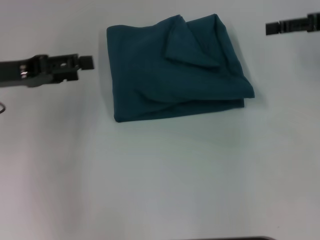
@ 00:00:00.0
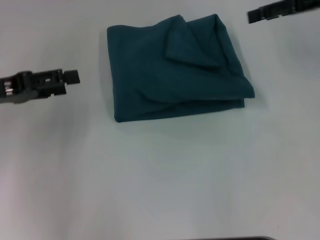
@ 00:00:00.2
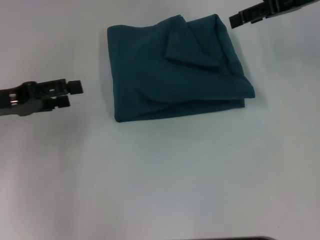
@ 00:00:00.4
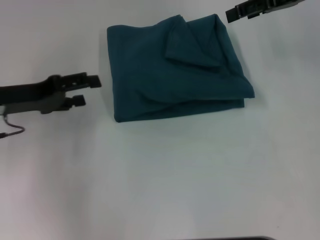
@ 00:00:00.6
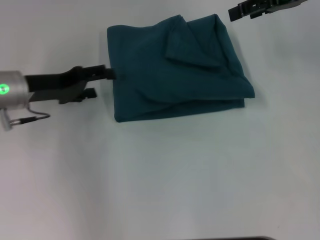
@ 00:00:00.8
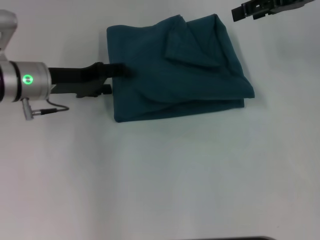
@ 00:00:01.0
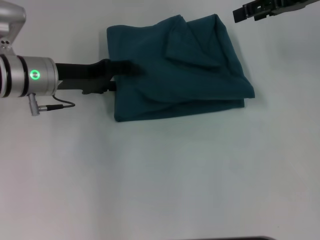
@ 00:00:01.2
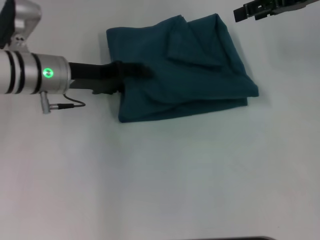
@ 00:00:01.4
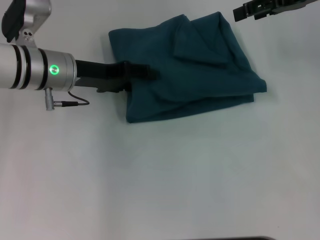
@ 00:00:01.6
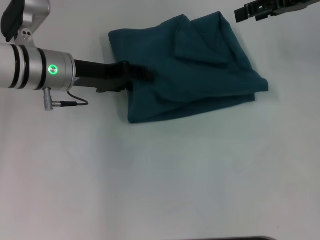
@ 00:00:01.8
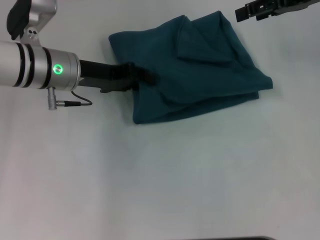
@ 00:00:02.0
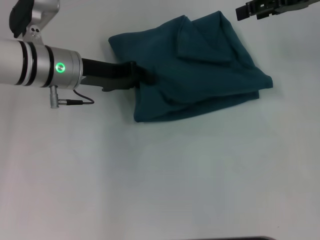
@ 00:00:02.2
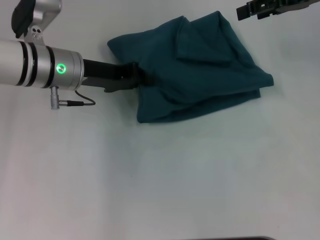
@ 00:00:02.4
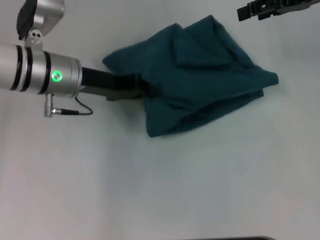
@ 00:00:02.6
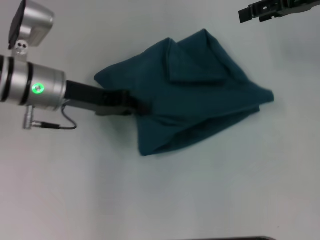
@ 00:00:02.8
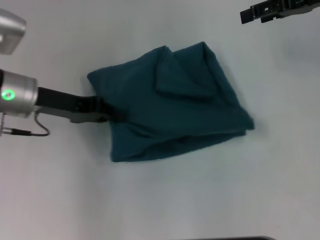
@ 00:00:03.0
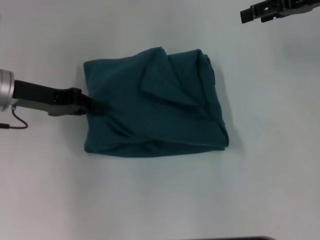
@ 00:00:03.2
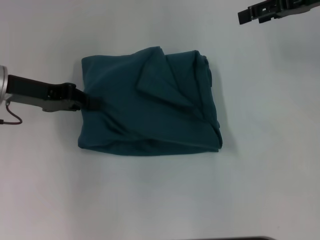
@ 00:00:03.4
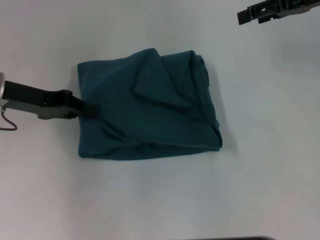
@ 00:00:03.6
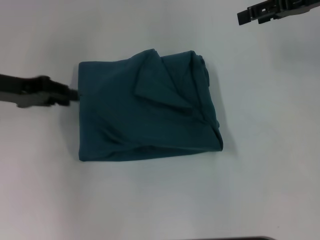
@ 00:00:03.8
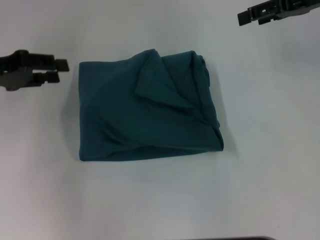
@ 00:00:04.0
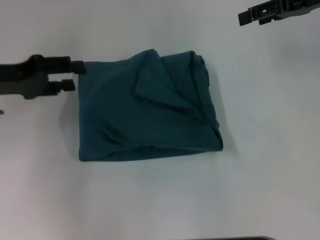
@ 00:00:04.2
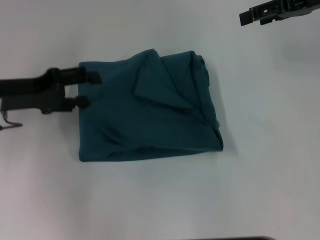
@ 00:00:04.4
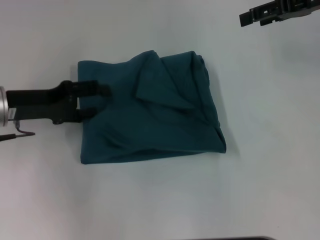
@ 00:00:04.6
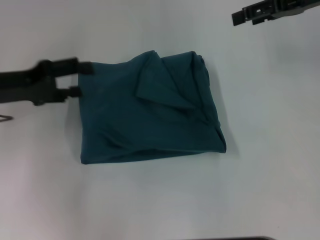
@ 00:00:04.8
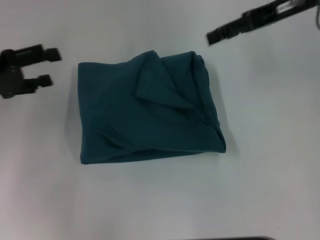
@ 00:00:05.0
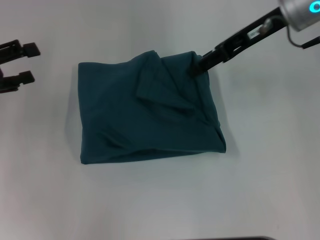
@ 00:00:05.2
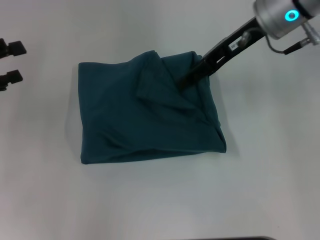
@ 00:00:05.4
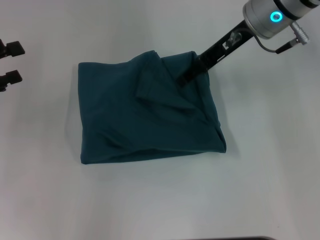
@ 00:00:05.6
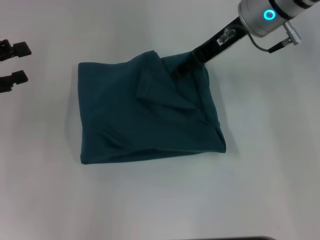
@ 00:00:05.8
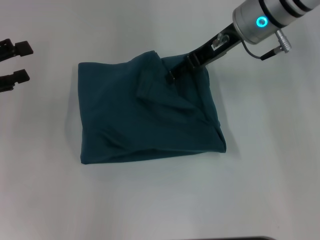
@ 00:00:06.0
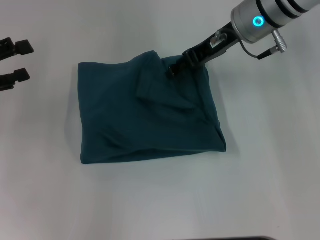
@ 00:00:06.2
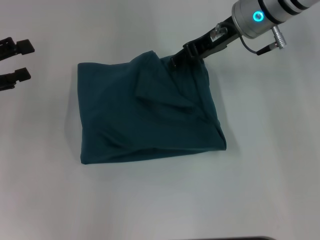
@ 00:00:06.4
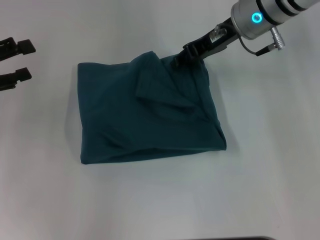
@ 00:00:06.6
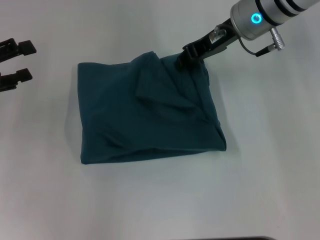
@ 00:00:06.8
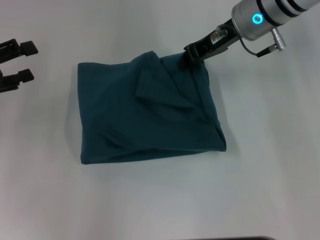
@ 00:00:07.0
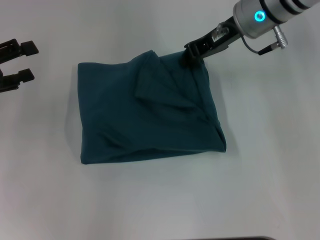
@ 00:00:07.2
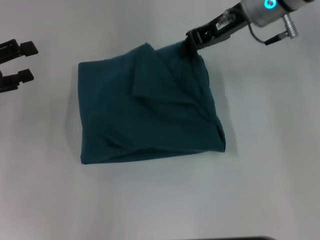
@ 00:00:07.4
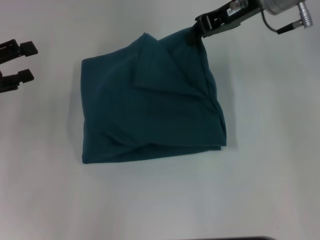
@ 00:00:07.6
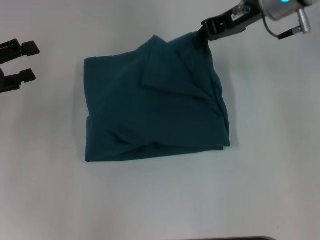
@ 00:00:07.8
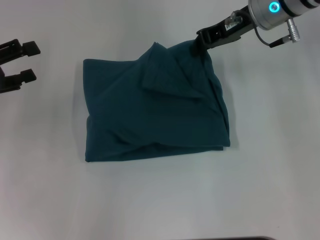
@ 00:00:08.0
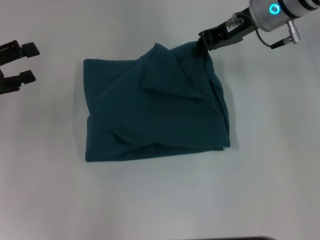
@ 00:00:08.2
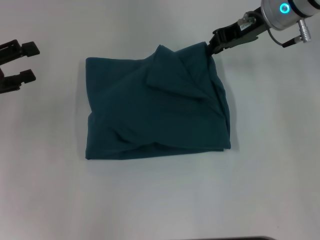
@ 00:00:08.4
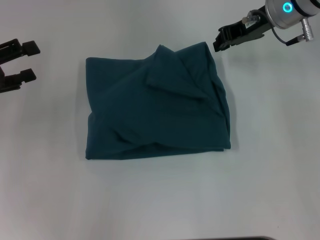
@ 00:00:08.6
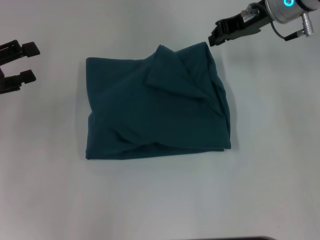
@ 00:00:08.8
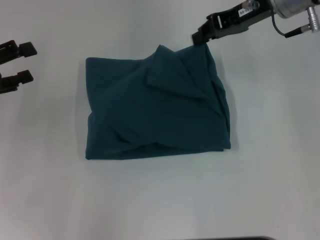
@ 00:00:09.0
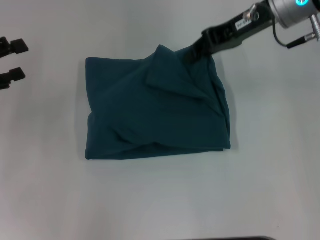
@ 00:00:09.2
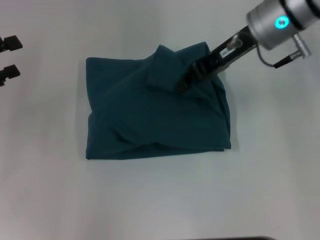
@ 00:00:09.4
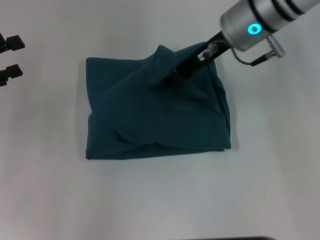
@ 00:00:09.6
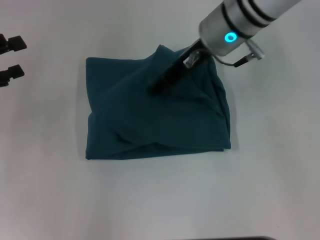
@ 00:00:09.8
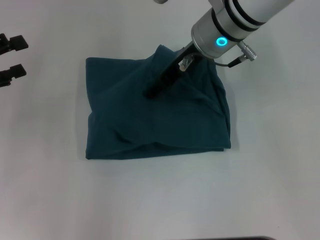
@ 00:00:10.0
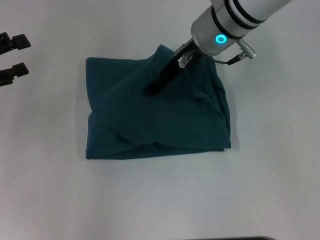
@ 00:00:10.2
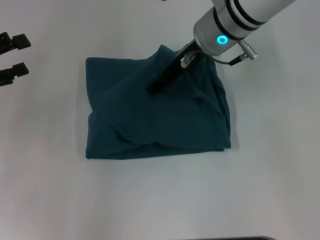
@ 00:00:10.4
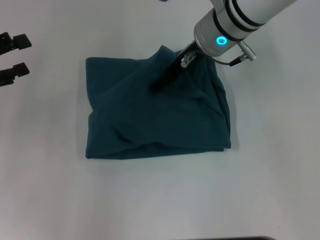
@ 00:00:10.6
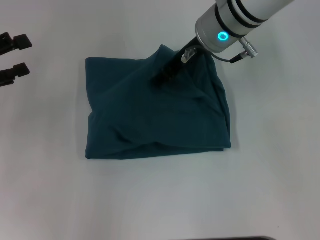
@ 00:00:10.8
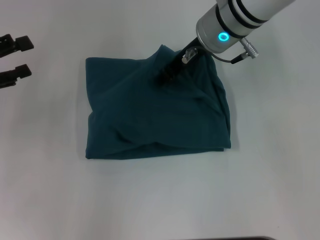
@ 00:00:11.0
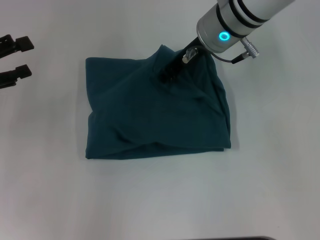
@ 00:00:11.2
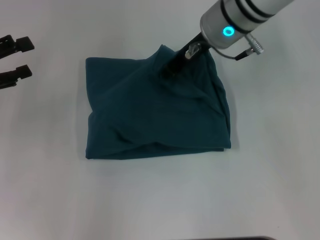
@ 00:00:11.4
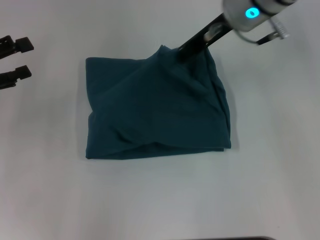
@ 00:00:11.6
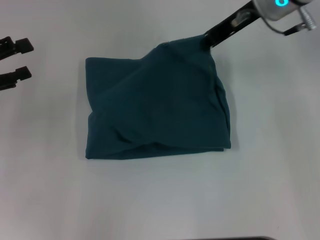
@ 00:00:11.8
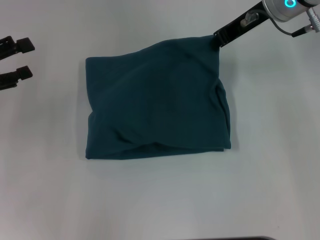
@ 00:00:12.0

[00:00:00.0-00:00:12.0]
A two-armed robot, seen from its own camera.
00:00:00.0 to 00:00:01.6: The left gripper shifts approximately 10 cm to the right. Meanwhile the right gripper shifts roughly 5 cm to the left.
00:00:01.6 to 00:00:03.0: The left gripper shifts by about 5 cm, and closes up.
00:00:03.0 to 00:00:04.4: The left gripper travels to the left by approximately 5 cm, and opens its fingers.
00:00:04.4 to 00:00:06.0: The right gripper moves to the left, approximately 15 cm. Meanwhile the left gripper is displaced to the left by roughly 5 cm.
00:00:06.0 to 00:00:07.6: The right gripper closes its fingers.
00:00:07.6 to 00:00:09.0: The grippers move only a little.
00:00:09.0 to 00:00:10.4: The right gripper travels to the left by approximately 10 cm, and opens up.
00:00:10.4 to 00:00:12.0: The right gripper goes about 10 cm to the right, and closes.

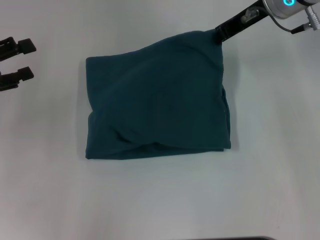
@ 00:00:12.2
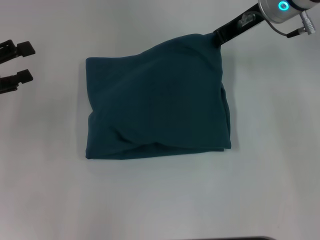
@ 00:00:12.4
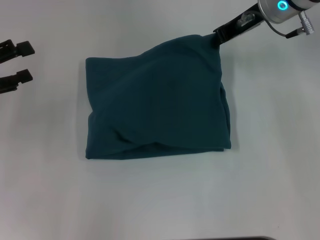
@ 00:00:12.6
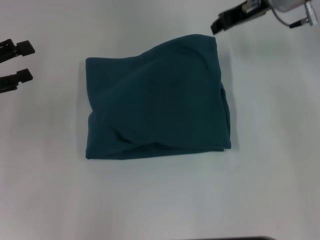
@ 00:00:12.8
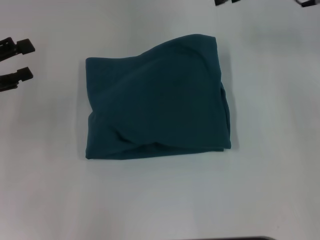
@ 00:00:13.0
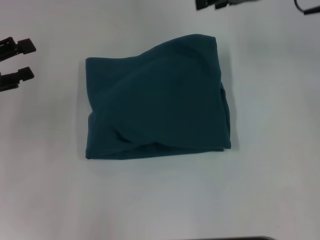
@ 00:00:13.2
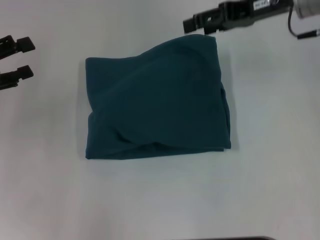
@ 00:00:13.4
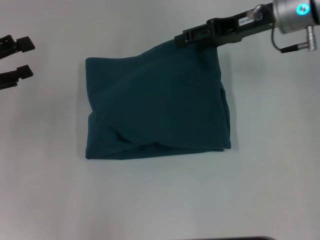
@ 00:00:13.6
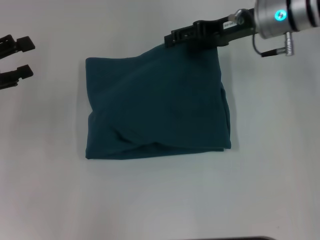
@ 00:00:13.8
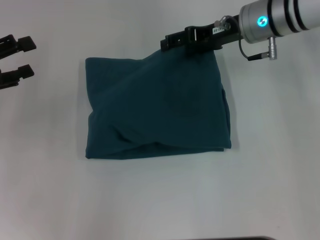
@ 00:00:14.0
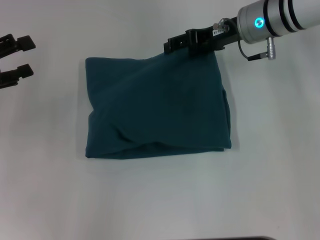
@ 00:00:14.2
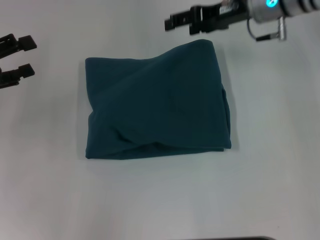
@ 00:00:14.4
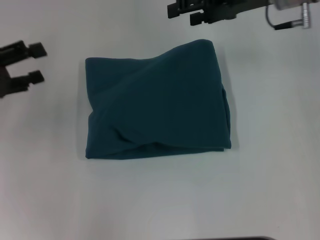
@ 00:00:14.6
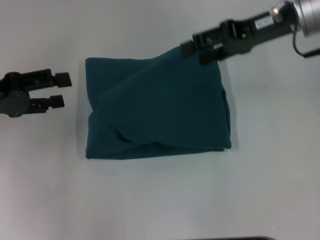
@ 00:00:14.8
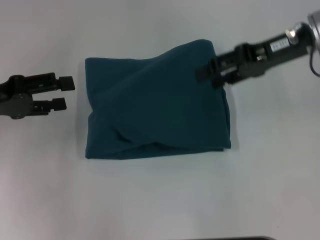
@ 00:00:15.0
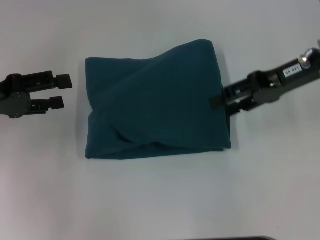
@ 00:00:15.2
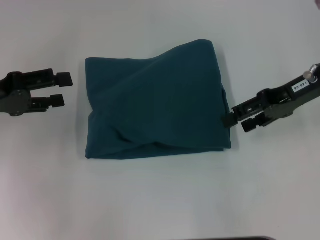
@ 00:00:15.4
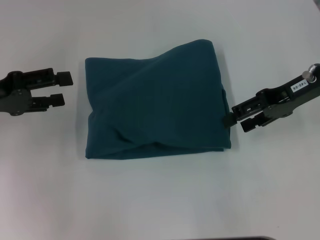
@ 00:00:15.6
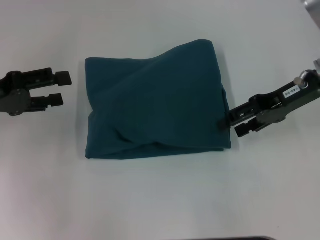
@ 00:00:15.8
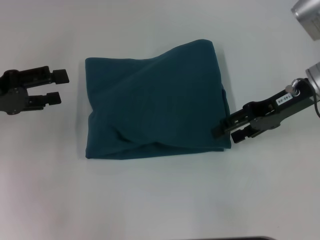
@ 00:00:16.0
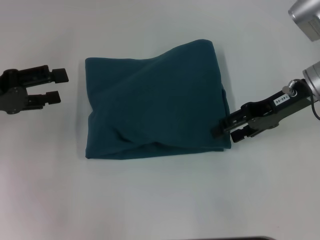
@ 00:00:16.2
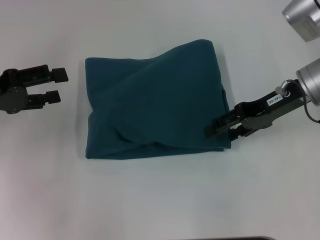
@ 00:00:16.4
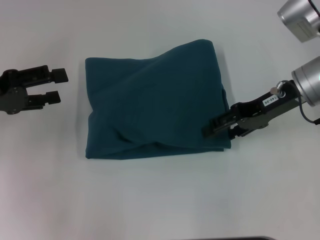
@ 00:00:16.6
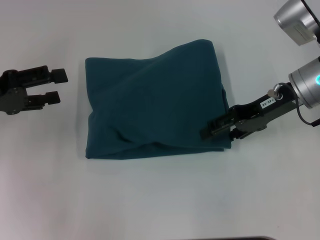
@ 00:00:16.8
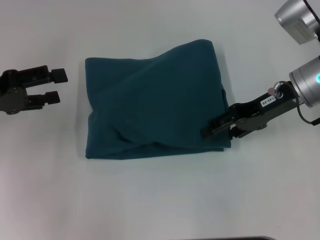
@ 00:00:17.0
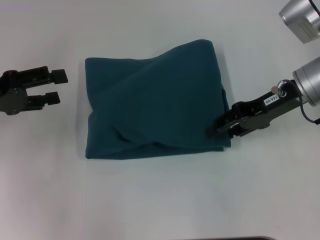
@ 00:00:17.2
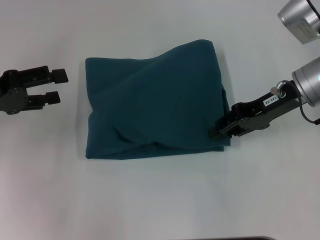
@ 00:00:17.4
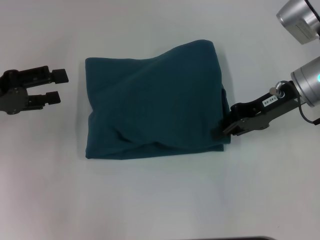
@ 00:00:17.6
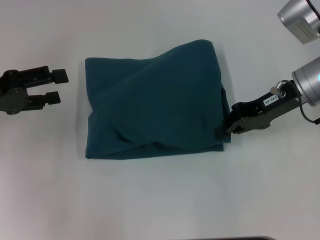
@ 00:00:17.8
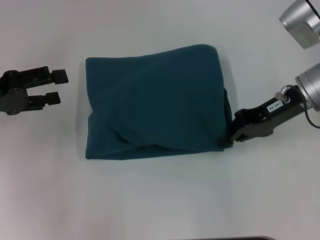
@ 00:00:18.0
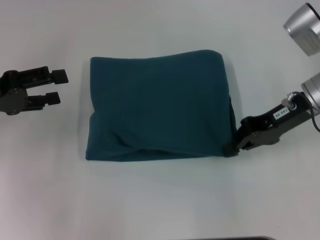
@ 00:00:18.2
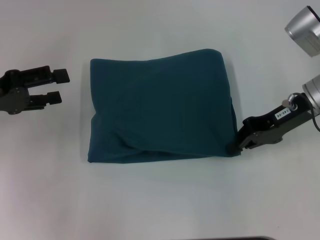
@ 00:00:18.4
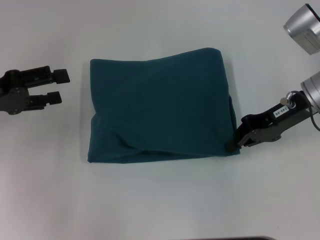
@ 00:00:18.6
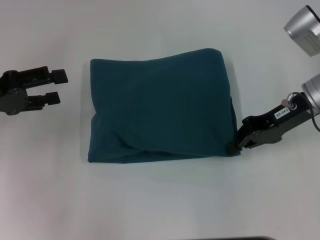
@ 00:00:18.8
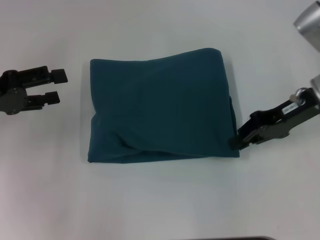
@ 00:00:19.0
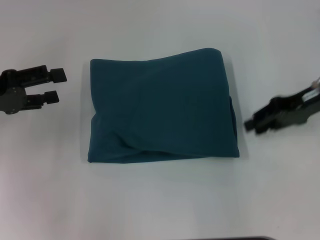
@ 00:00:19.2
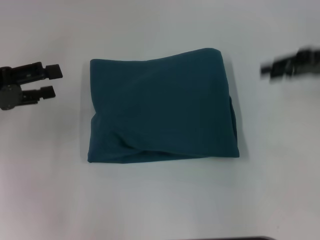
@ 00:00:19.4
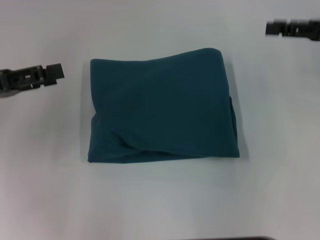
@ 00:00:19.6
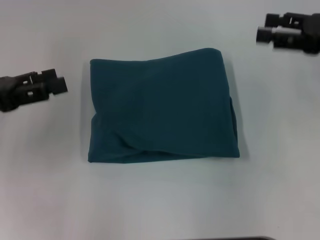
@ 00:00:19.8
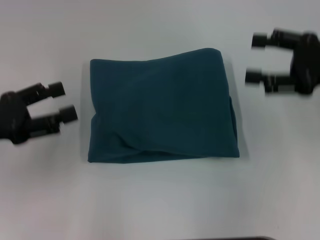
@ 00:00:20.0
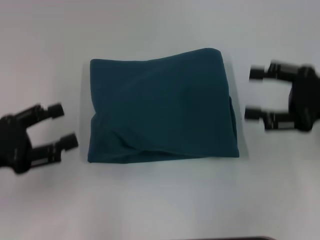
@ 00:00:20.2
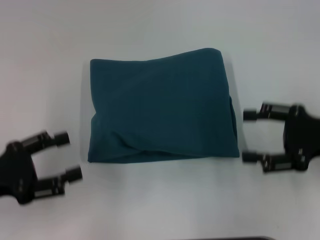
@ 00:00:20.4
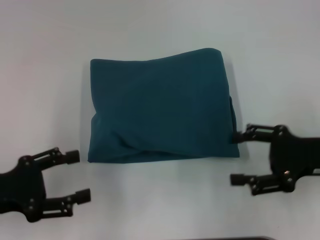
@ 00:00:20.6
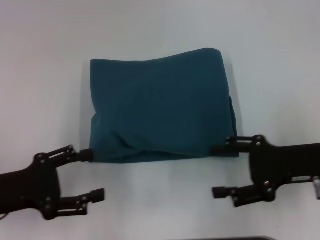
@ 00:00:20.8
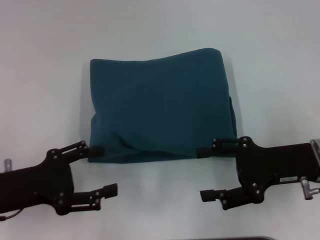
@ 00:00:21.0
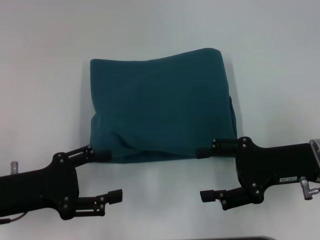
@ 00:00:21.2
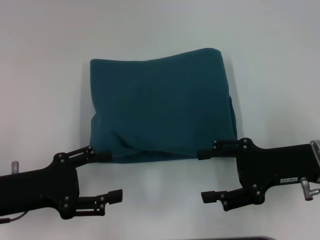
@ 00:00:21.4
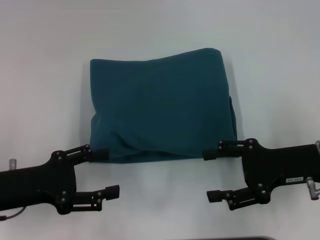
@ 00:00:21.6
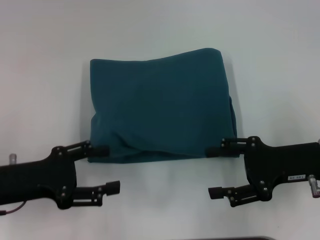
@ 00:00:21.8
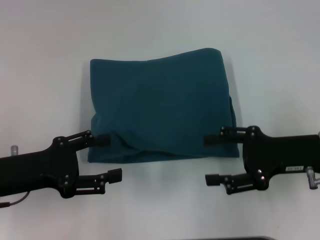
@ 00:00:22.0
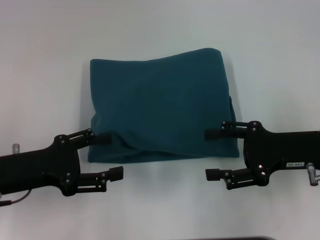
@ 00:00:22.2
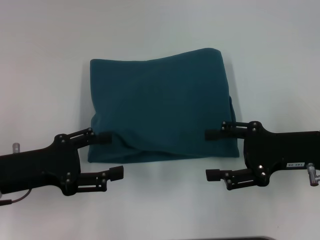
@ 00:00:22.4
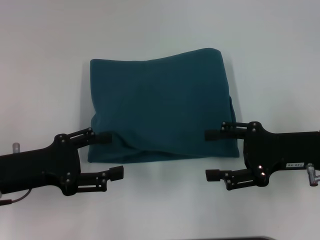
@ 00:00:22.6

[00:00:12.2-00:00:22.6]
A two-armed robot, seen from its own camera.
00:00:12.2 to 00:00:13.6: The right gripper opens up.
00:00:13.6 to 00:00:15.2: The right gripper shifts about 5 cm backward.
00:00:15.2 to 00:00:16.6: The grippers stay close to where they were, moving slightly.
00:00:16.6 to 00:00:18.2: The right gripper closes.
00:00:18.2 to 00:00:19.6: The right gripper heads to the right, covering approximately 10 cm, and opens.
00:00:19.6 to 00:00:21.2: The left gripper shifts about 15 cm backward, downward and to the right. Meanwhile the right gripper travels backward, downward and to the left by approximately 15 cm, and opens up.
00:00:21.2 to 00:00:22.6: The grippers make only small movements.
